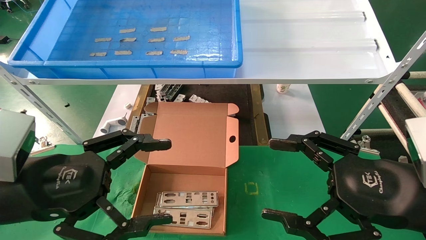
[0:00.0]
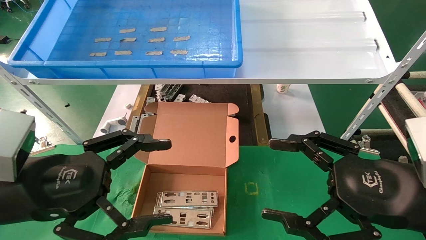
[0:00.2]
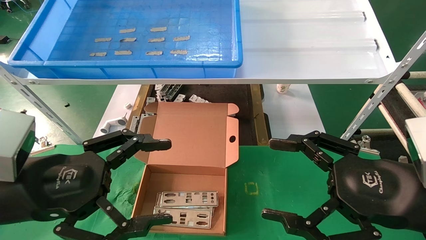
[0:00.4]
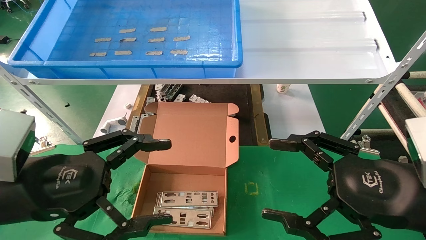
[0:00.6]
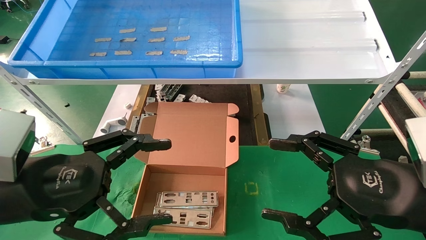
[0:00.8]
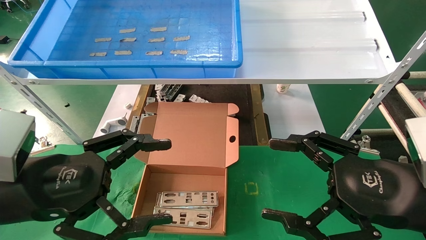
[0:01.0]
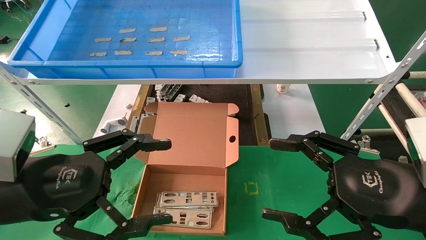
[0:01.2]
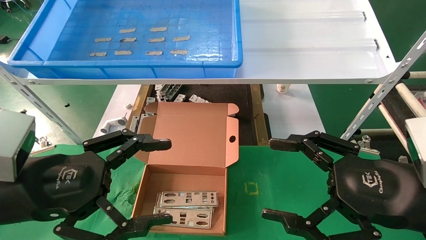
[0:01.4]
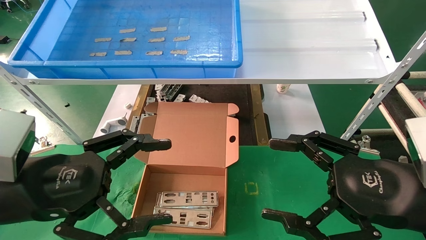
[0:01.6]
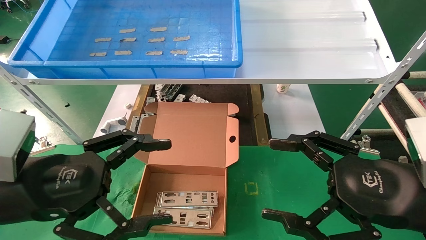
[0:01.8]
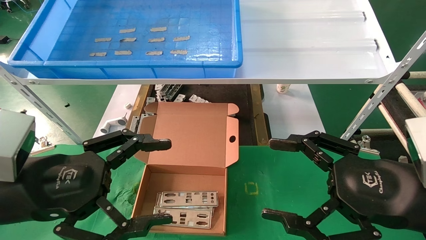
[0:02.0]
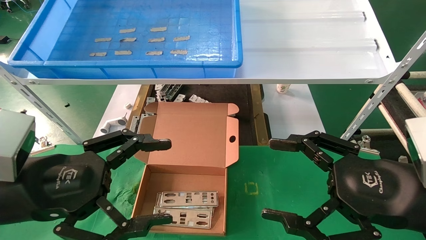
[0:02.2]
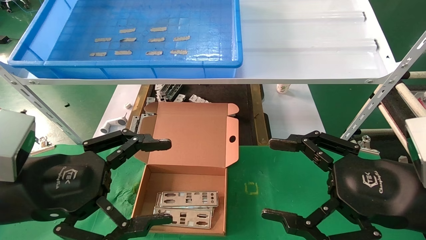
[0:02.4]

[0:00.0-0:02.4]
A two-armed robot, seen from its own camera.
Task of the whole recording: pick up the parts on the tray and put them in the cardboard box.
0:00.0 to 0:02.4: The two grippers keep their place.

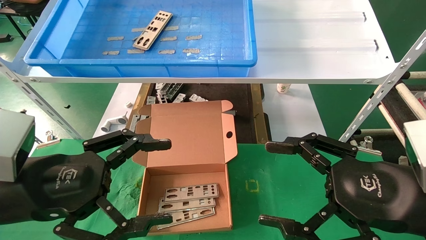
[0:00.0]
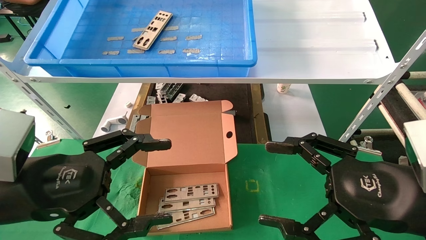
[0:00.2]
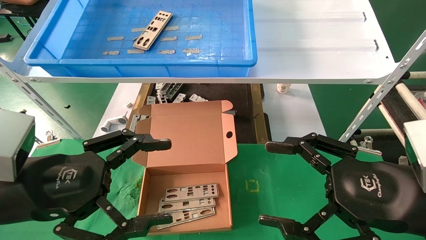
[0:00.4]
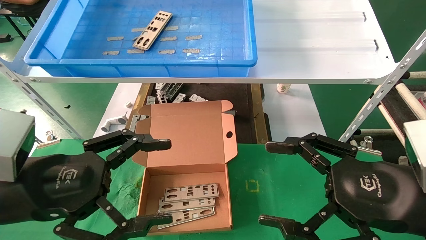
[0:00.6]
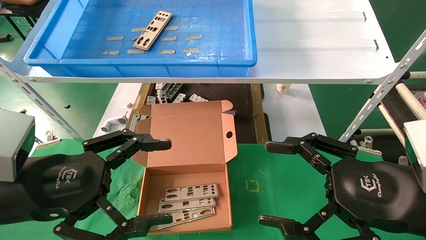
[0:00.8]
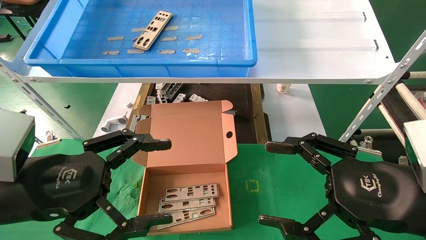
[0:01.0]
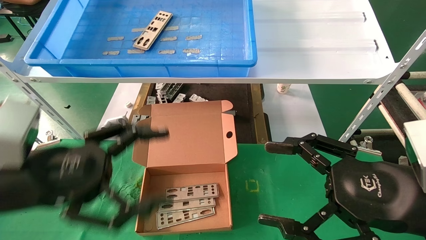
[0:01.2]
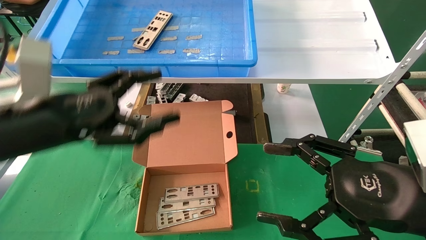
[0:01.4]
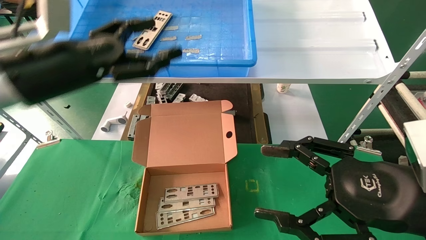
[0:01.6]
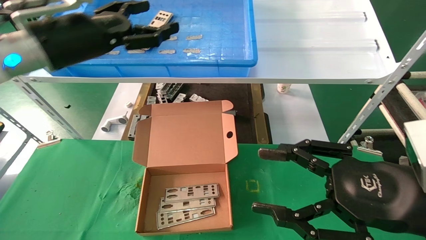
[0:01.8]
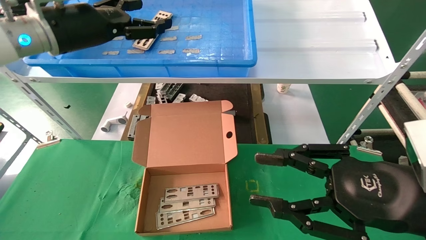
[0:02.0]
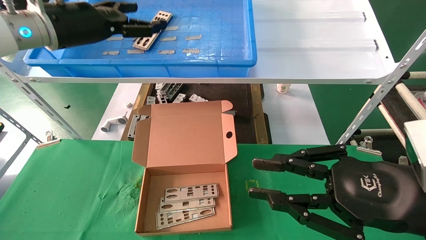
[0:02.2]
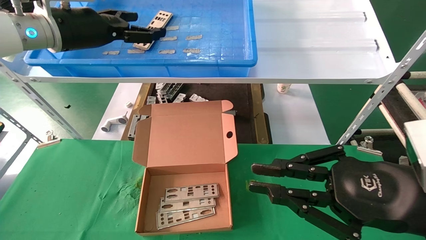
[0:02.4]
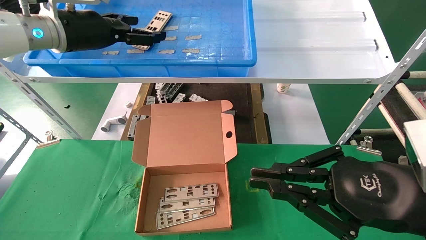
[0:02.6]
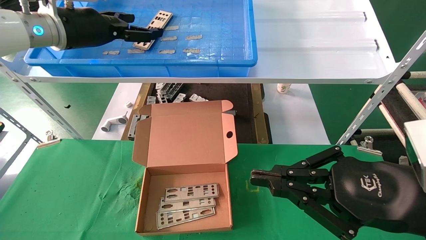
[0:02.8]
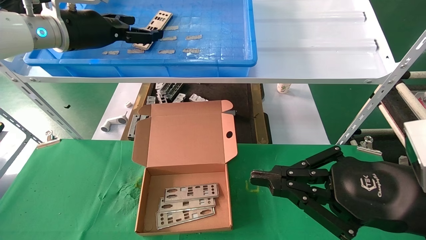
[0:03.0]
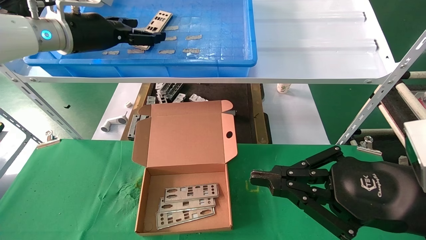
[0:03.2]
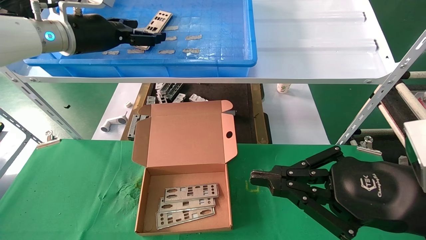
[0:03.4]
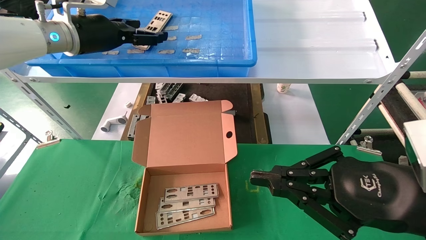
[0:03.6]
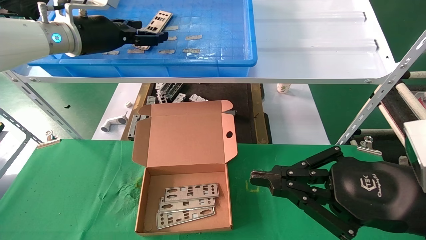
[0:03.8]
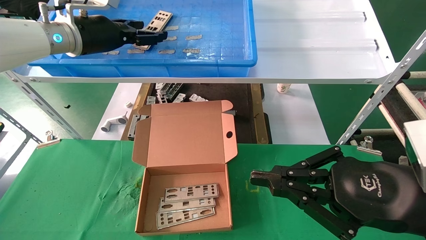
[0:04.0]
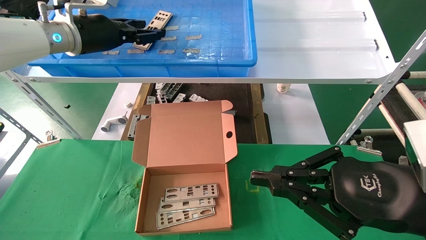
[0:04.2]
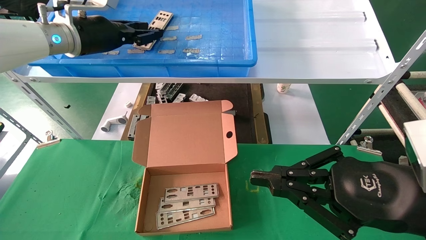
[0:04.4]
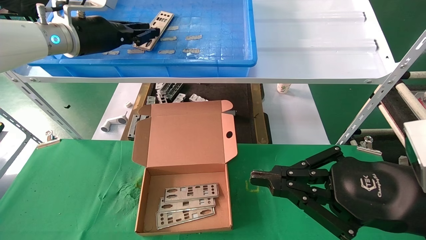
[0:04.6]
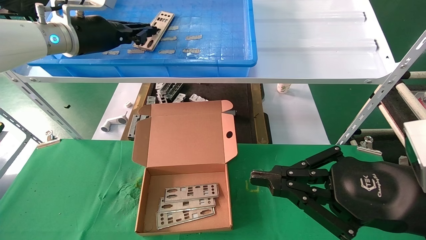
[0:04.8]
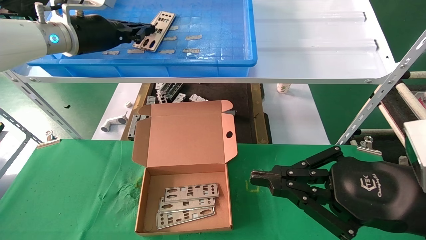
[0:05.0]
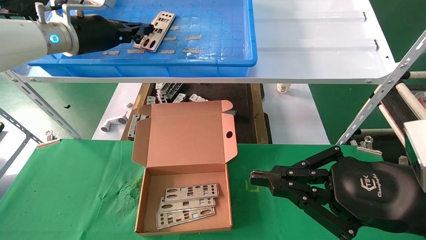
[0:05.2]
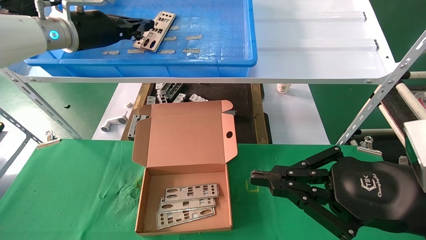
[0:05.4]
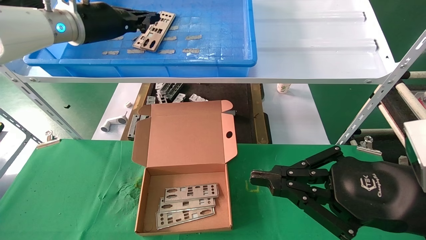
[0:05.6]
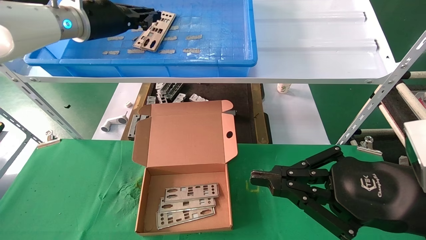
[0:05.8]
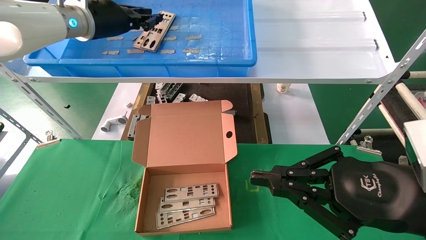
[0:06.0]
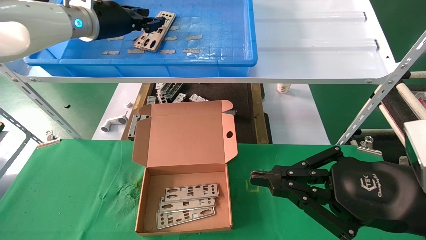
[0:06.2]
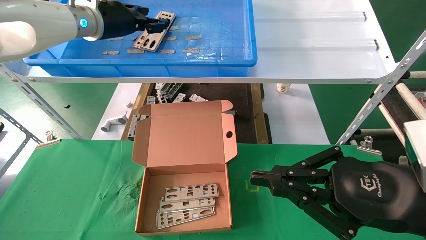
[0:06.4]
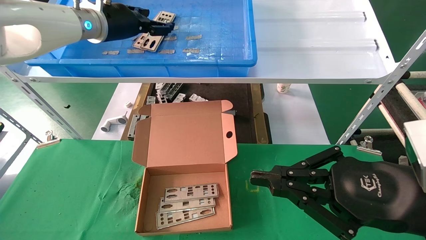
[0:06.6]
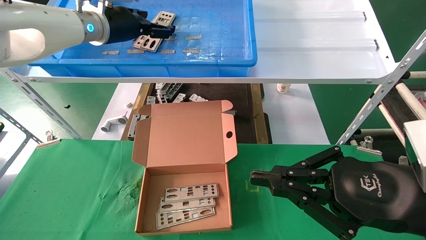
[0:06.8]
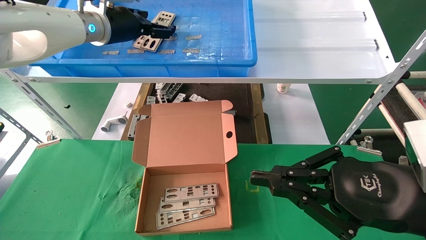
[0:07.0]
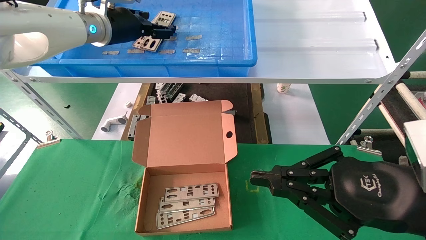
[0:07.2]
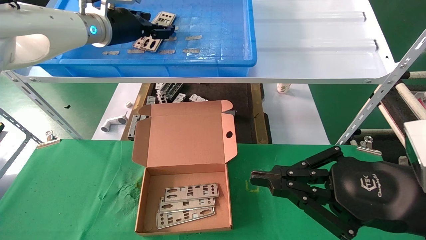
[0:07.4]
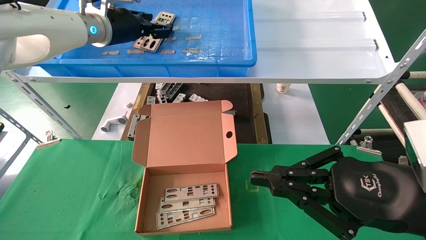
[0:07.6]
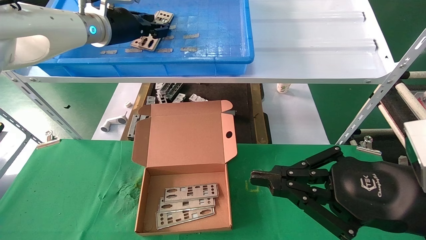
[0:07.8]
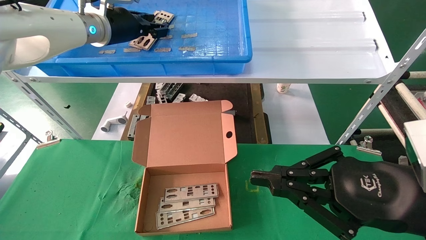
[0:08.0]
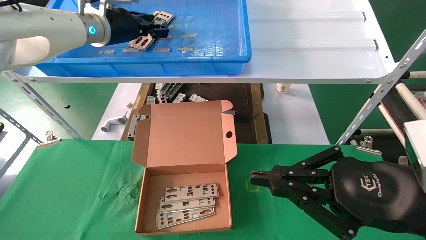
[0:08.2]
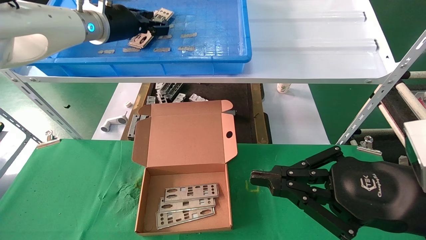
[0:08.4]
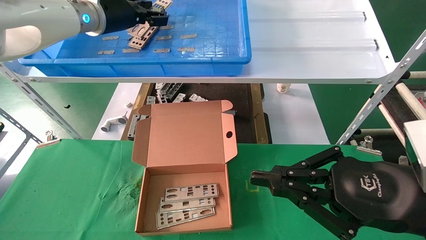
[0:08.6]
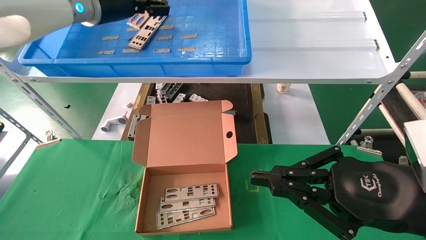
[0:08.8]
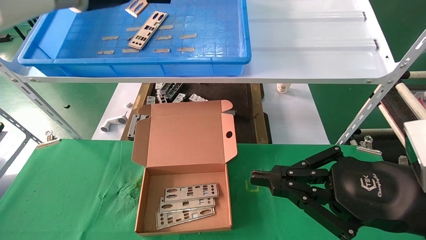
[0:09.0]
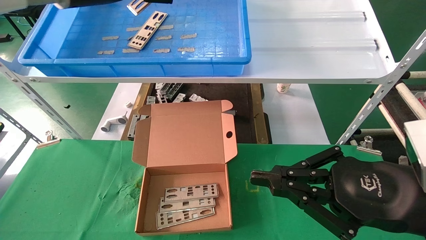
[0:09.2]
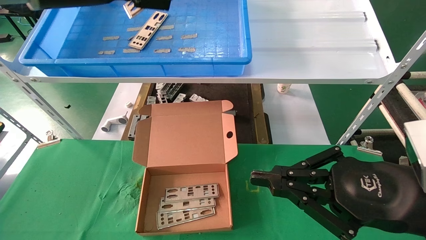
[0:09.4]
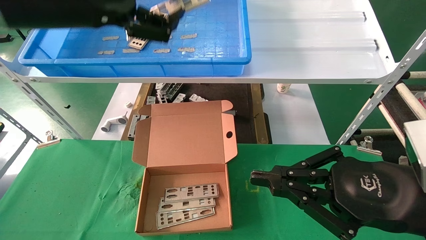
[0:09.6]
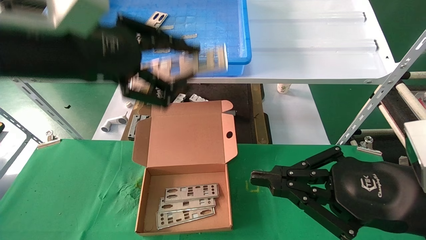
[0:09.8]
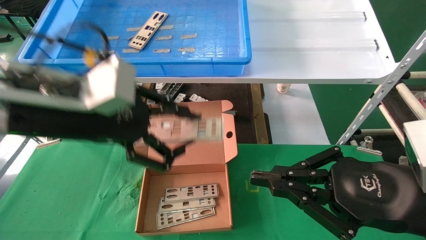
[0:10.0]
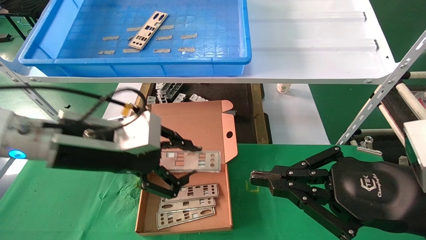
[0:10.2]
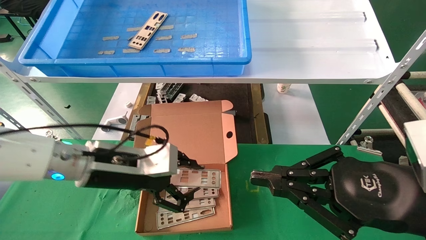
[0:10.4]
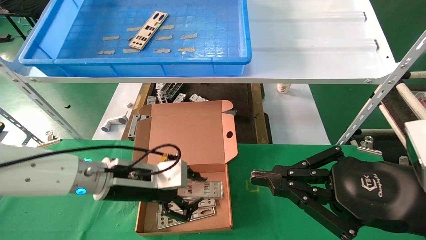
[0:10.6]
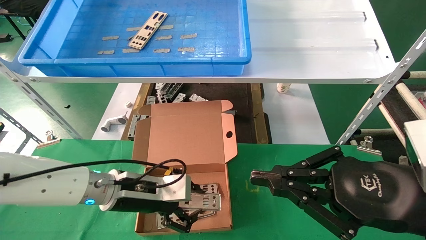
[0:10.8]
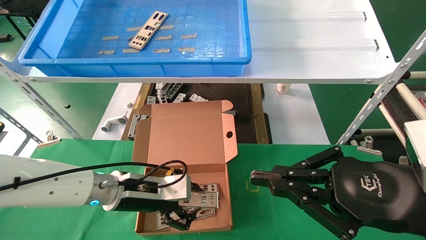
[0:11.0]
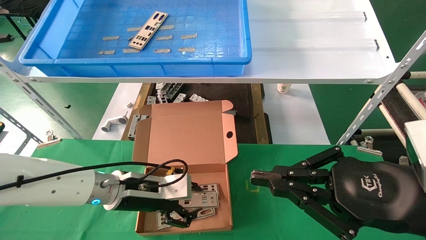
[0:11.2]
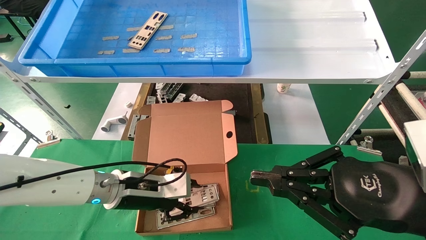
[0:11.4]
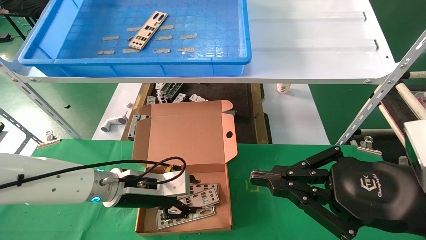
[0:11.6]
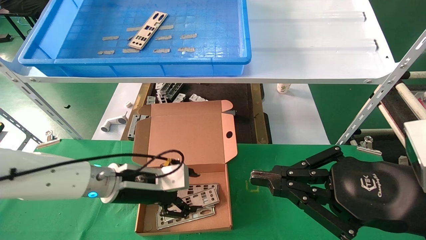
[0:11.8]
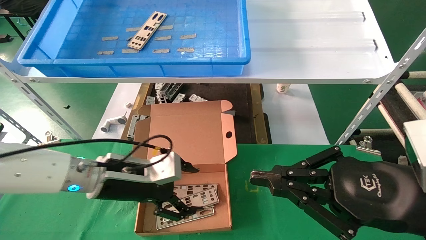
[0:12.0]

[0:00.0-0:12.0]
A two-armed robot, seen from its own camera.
Task of the whole recording: pick up the parts on the tray and put them in the cardboard box.
Step, 0:01.8 to 0:08.6: Pick up the IO bracket from the container box.
Step, 0:08.8 to 0:11.6: Place the IO bracket into the ingredient slot.
0:00.0 to 0:01.6: The left gripper goes some 15 cm forward and upward.
0:01.6 to 0:03.0: The left gripper heads forward and upward, covering roughly 15 cm, while the right gripper closes.
0:03.0 to 0:04.4: The left gripper closes its fingers.
0:04.4 to 0:06.0: The left gripper closes.
0:06.0 to 0:07.6: The left gripper opens.
0:07.6 to 0:09.0: The left gripper goes about 10 cm upward and backward, and closes its fingers.
0:09.0 to 0:10.4: The left gripper travels downward by some 25 cm.
0:10.4 to 0:12.0: The left gripper opens its fingers.

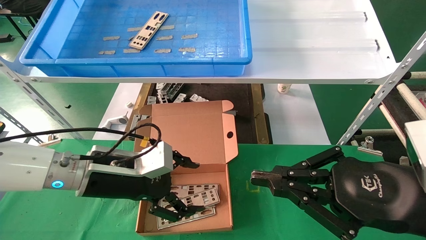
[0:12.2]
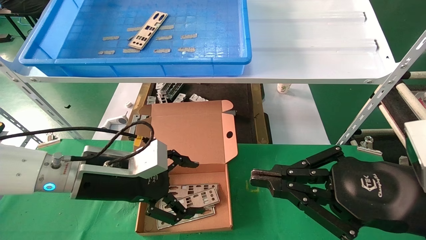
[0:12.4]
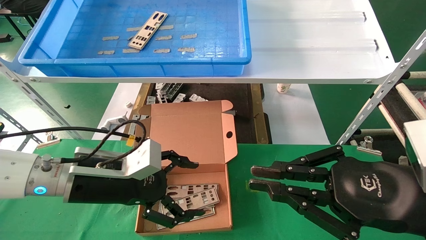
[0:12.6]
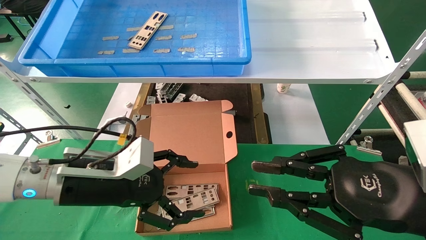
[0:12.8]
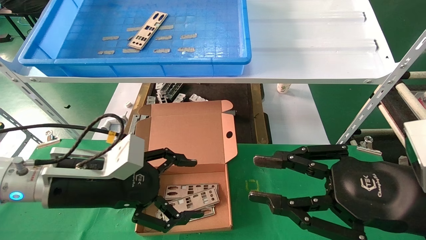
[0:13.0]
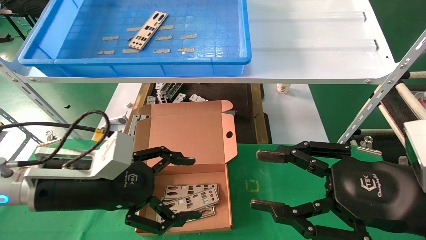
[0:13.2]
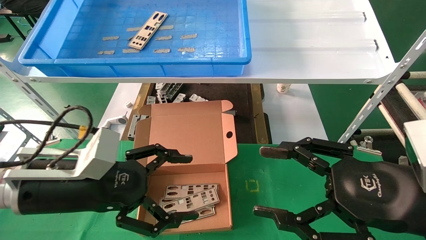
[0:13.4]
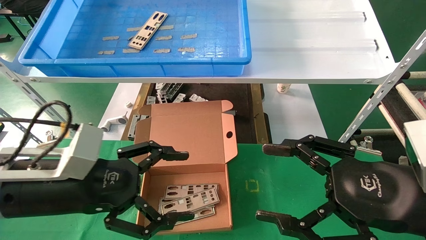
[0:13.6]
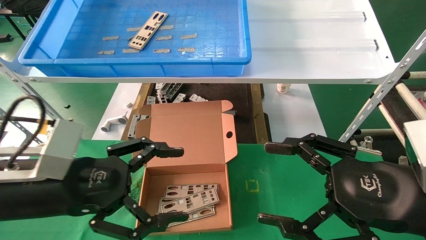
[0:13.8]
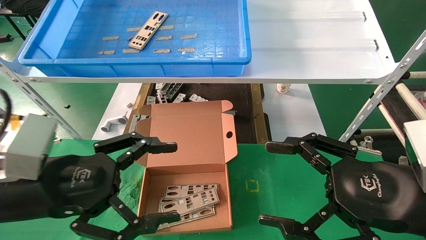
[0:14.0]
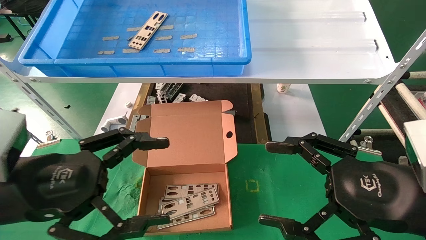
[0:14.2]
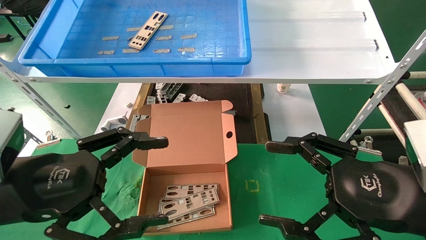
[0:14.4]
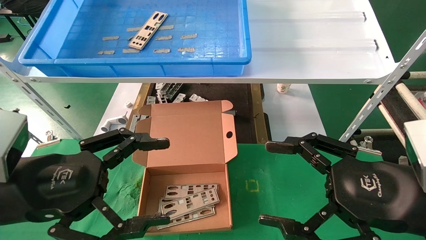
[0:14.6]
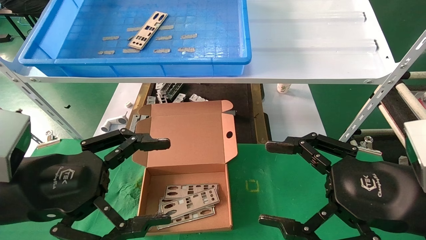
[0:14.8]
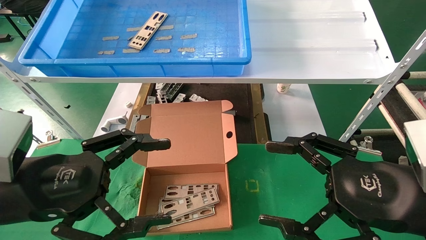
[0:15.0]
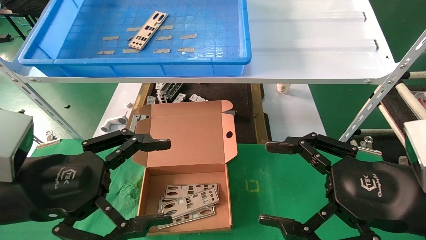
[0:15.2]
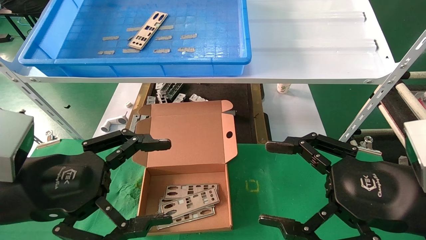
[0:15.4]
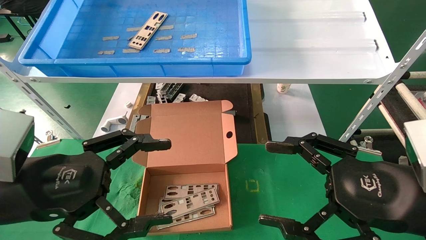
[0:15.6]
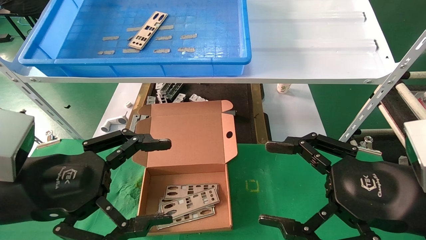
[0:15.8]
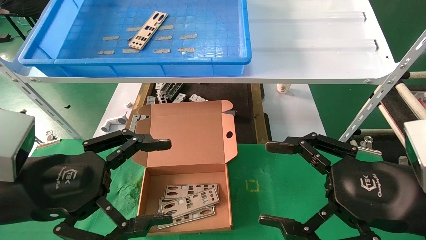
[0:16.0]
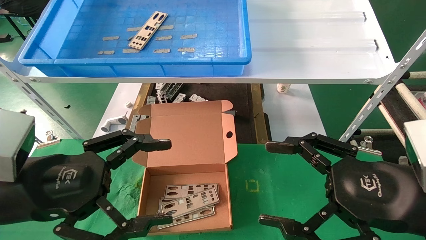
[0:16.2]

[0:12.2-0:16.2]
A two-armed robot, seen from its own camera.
Task of the whole recording: pick up the parts on the tray and put them in the cardboard box.
0:12.2 to 0:13.6: The left gripper travels backward by about 10 cm; the right gripper opens up.
0:13.6 to 0:14.8: There are only small adjustments of the grippers.
0:14.8 to 0:16.2: Neither gripper changes place.
